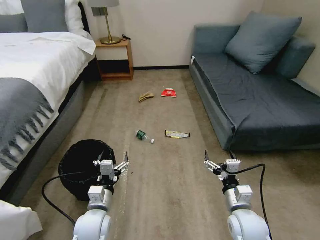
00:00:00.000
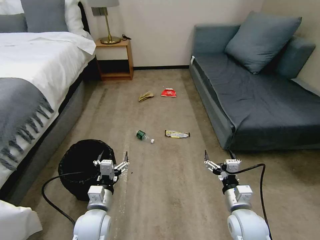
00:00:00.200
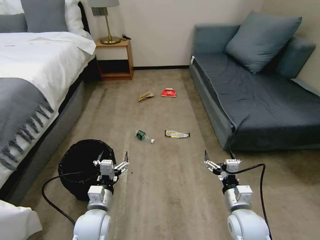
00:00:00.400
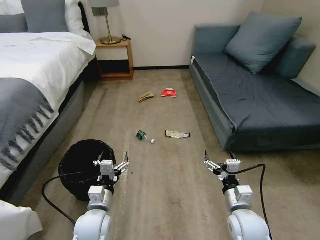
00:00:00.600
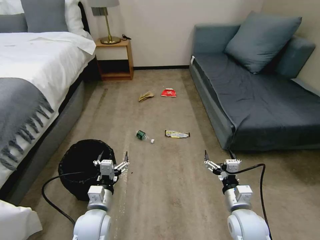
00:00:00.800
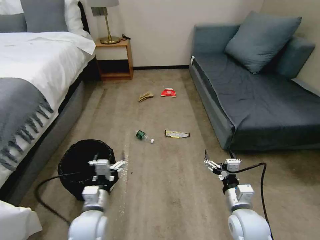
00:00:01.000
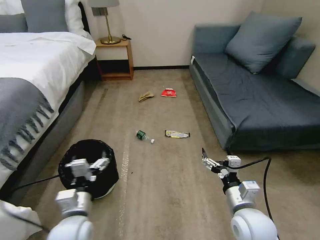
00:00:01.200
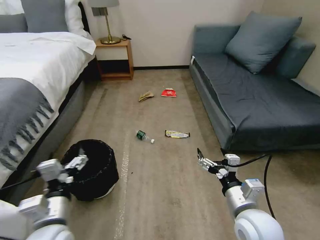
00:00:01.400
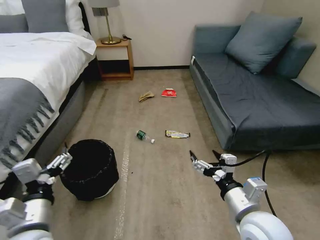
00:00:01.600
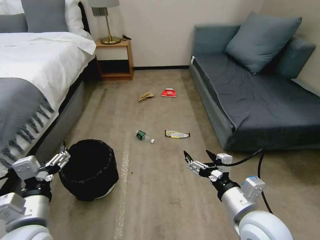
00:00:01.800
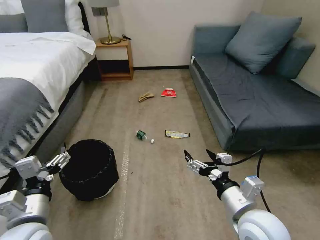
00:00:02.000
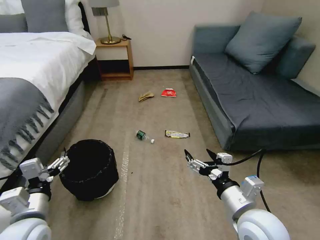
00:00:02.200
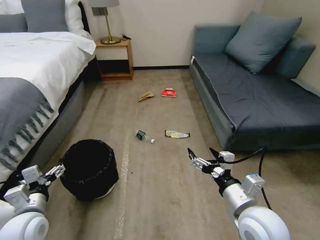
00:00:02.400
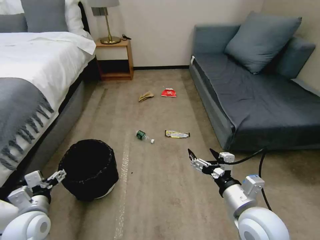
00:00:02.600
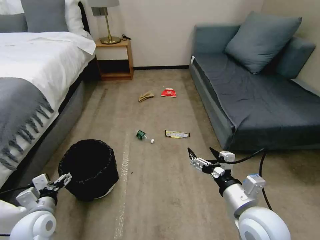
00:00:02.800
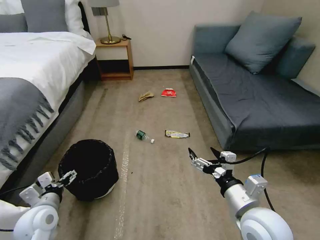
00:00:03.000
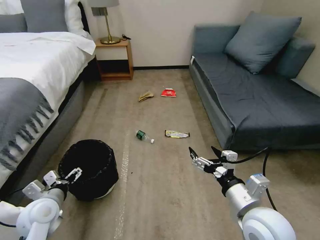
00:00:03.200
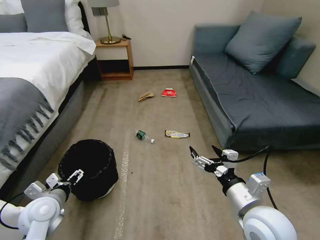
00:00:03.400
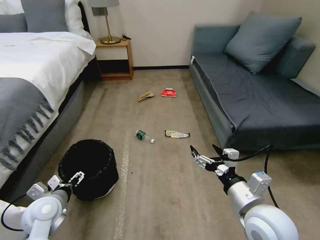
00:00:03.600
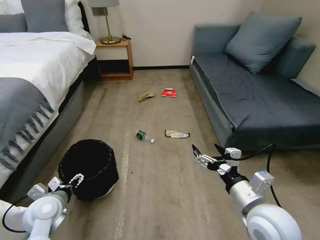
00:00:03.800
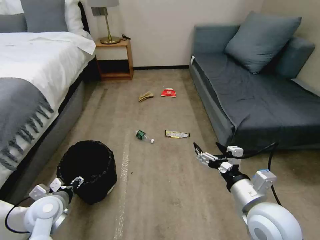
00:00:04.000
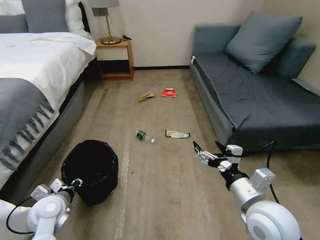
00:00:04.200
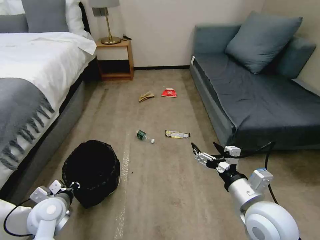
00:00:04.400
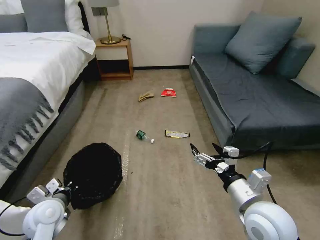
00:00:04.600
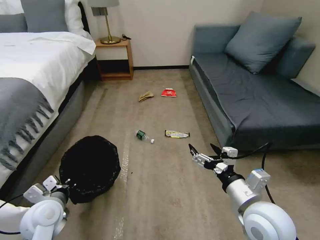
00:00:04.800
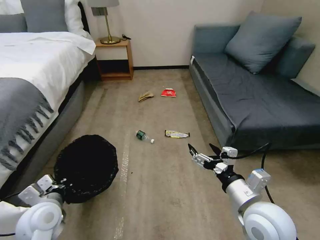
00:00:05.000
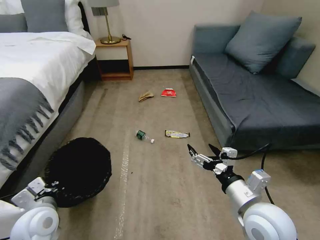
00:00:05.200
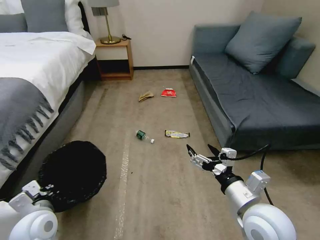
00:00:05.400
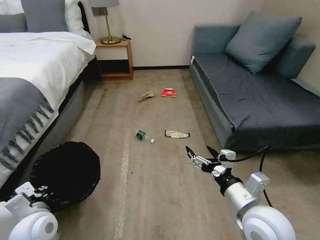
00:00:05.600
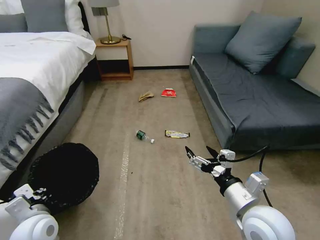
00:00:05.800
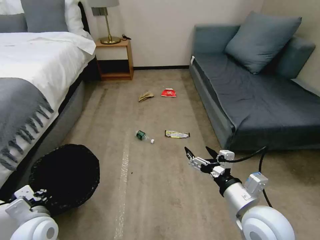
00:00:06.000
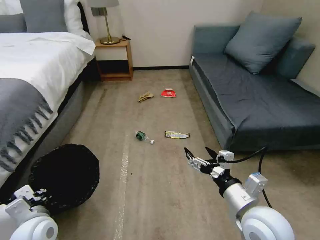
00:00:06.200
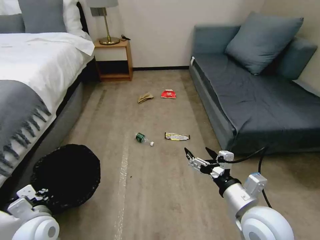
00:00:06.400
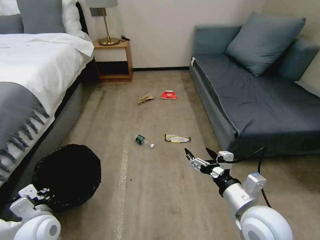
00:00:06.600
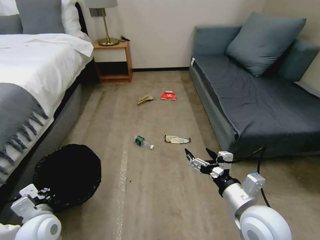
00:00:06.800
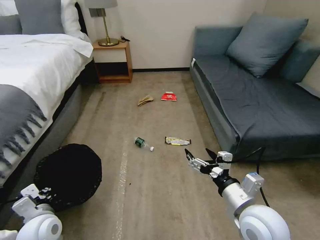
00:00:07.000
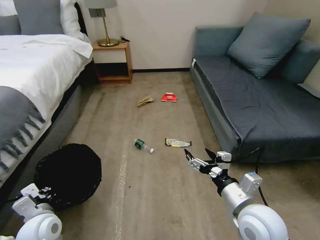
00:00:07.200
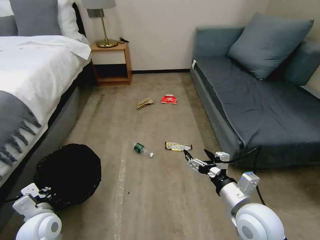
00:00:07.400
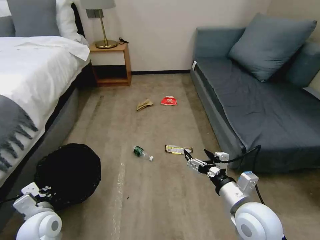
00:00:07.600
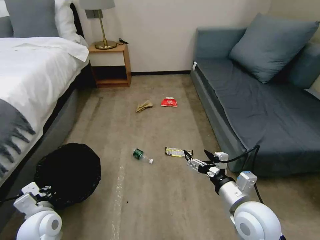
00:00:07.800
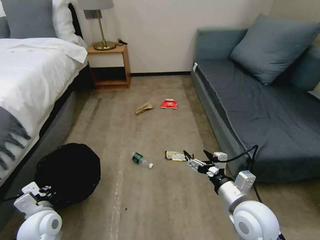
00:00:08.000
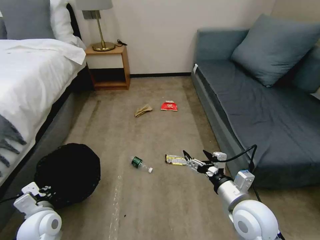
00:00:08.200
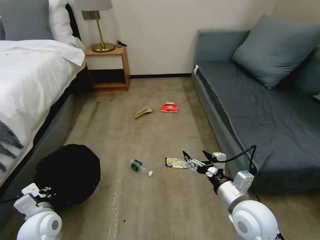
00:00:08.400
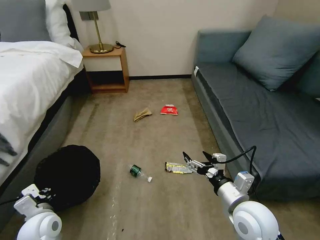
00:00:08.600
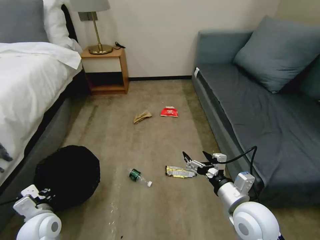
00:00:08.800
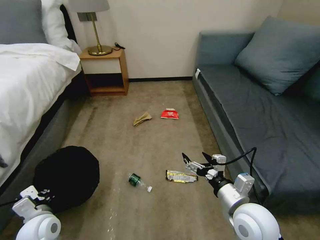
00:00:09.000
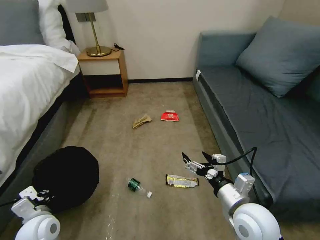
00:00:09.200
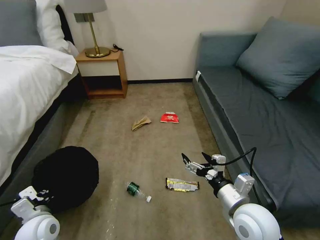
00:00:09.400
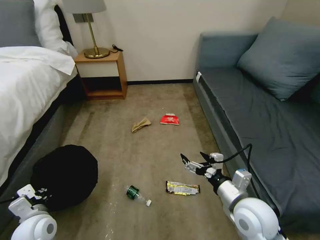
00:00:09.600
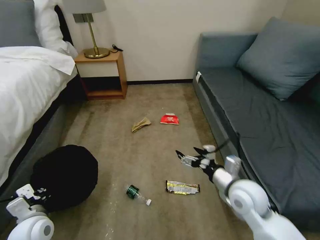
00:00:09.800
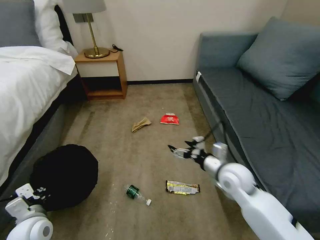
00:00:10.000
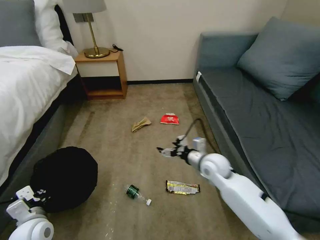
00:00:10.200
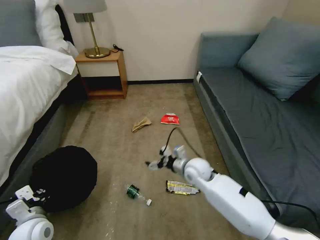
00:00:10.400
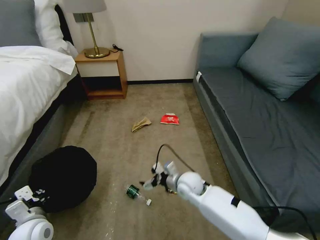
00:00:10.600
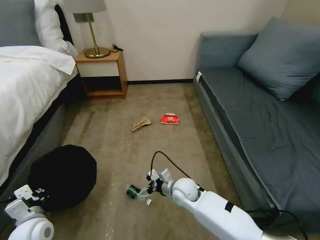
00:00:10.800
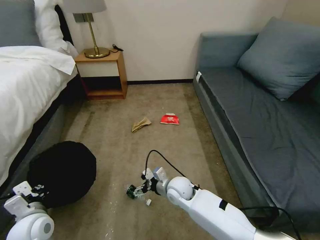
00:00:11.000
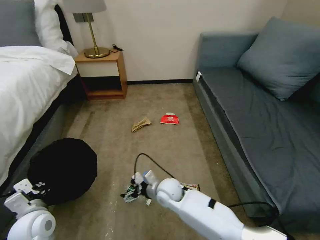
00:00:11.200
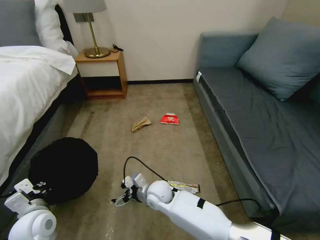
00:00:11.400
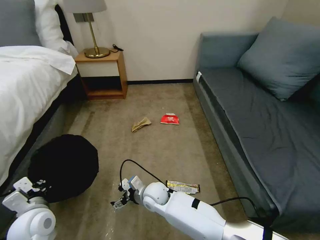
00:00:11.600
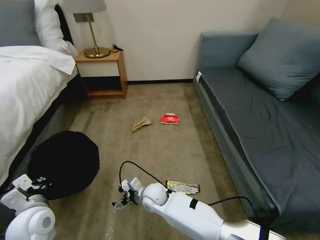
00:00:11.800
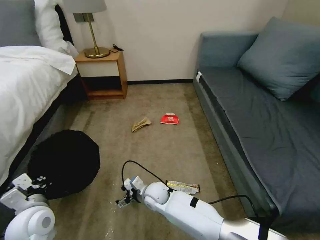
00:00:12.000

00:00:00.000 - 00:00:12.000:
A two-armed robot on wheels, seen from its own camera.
Task of the whole recording: Pick up the trash bin, then pick up the garbage on the floor and place it into the trash bin.
00:00:01.600 - 00:00:03.000: The left gripper travels downward, to the left and forward by roughly 15 cm.
00:00:03.000 - 00:00:04.400: The left gripper closes.
00:00:04.400 - 00:00:06.000: The left gripper is displaced backward by about 5 cm.
00:00:09.000 - 00:00:10.400: The right gripper goes some 20 cm forward, to the left and downward.
00:00:10.400 - 00:00:12.000: The right gripper is displaced to the left and downward by roughly 20 cm; the left gripper heads upward, covering some 5 cm.

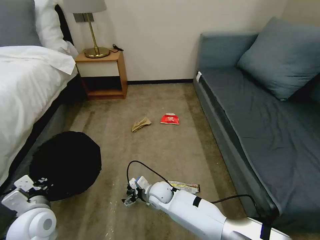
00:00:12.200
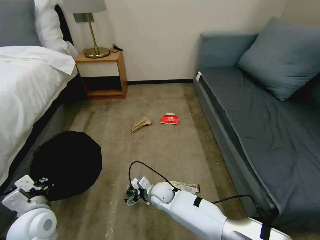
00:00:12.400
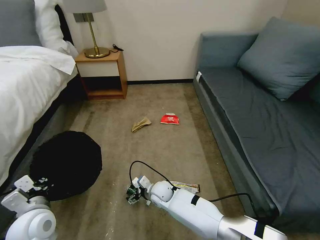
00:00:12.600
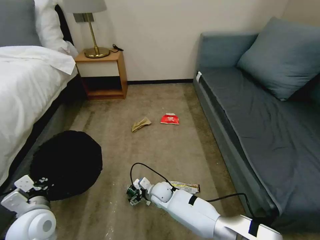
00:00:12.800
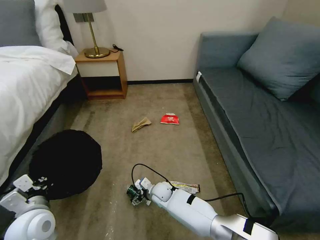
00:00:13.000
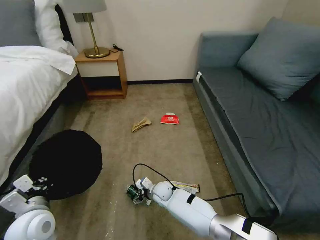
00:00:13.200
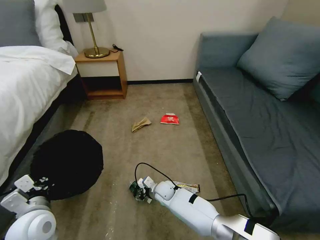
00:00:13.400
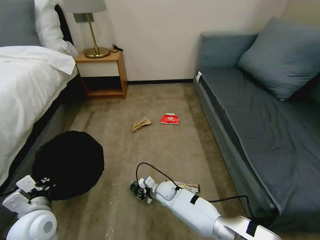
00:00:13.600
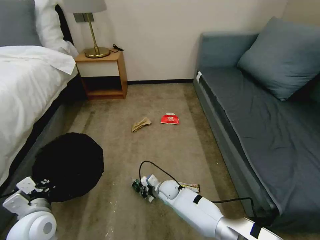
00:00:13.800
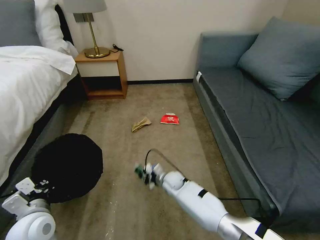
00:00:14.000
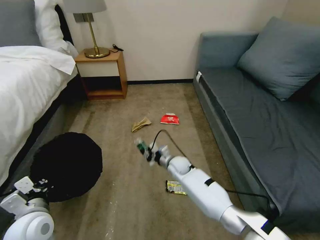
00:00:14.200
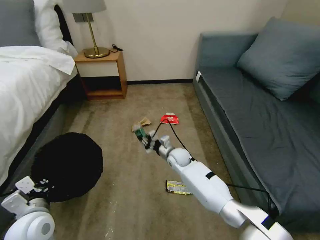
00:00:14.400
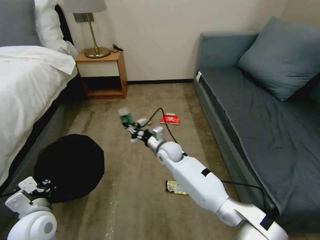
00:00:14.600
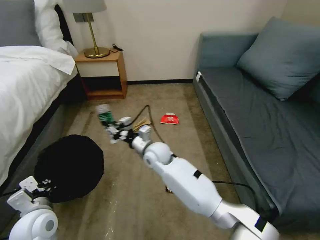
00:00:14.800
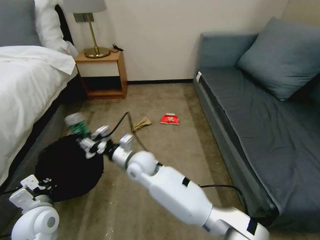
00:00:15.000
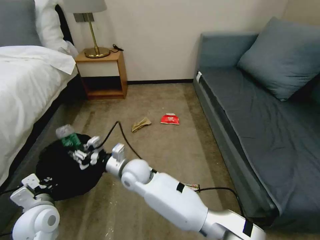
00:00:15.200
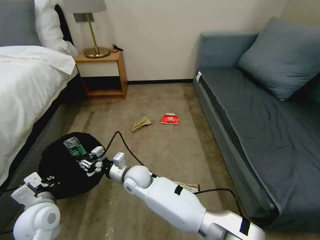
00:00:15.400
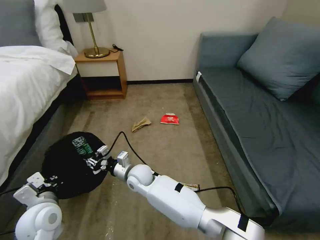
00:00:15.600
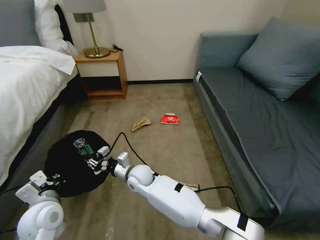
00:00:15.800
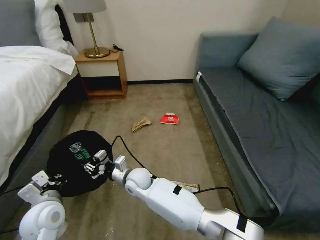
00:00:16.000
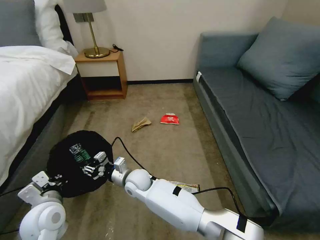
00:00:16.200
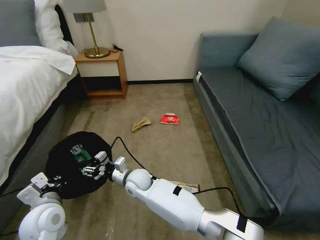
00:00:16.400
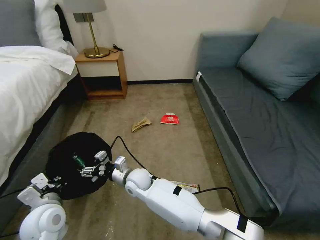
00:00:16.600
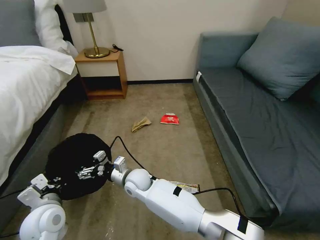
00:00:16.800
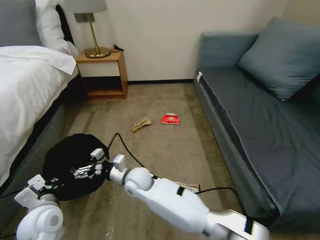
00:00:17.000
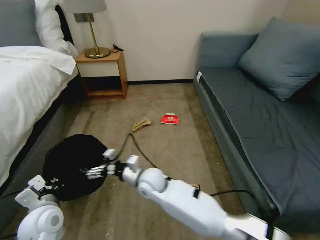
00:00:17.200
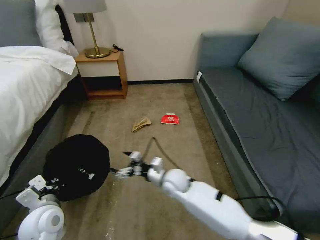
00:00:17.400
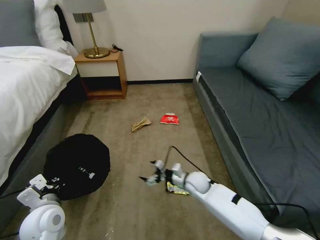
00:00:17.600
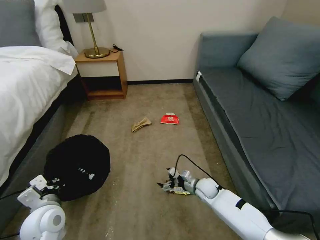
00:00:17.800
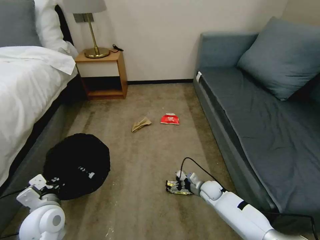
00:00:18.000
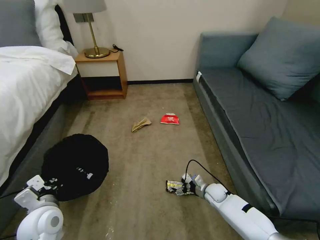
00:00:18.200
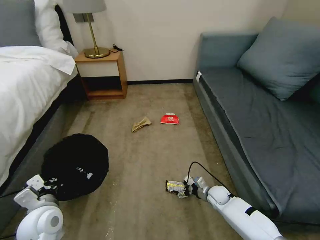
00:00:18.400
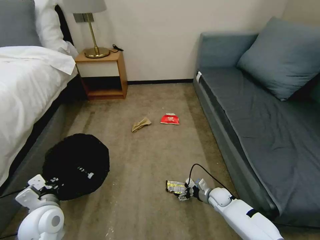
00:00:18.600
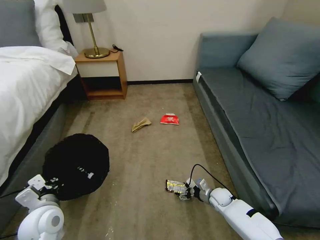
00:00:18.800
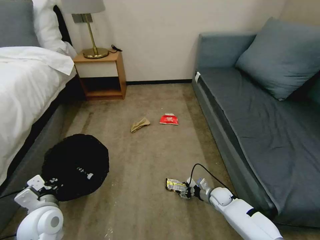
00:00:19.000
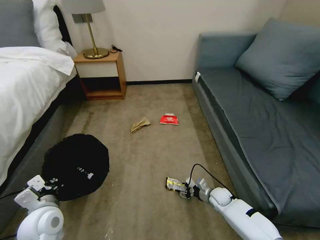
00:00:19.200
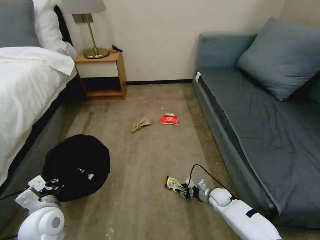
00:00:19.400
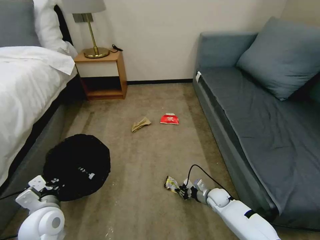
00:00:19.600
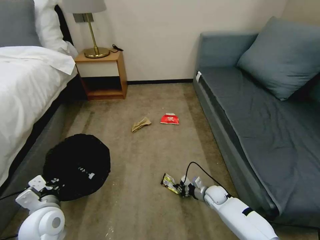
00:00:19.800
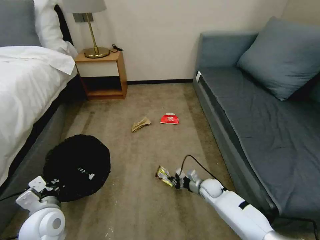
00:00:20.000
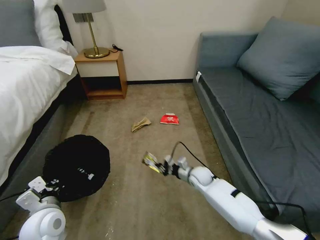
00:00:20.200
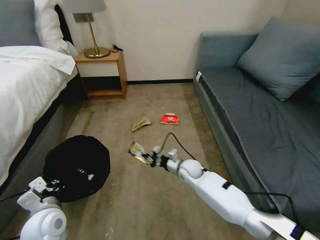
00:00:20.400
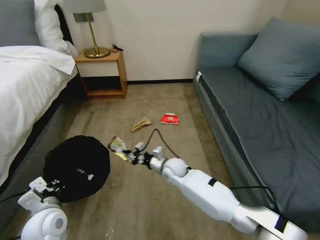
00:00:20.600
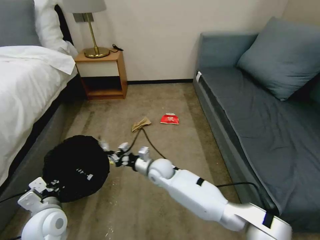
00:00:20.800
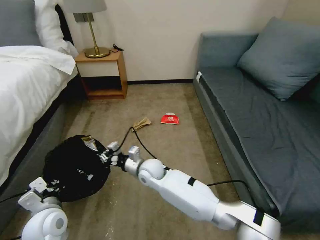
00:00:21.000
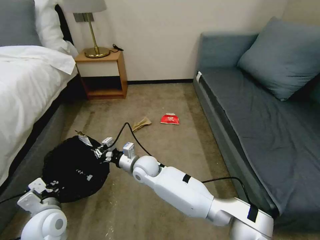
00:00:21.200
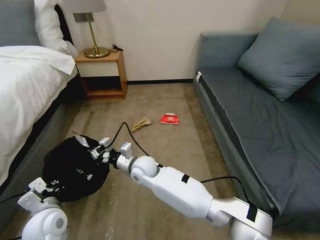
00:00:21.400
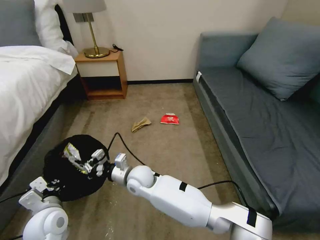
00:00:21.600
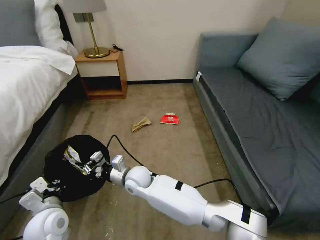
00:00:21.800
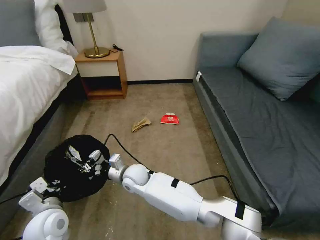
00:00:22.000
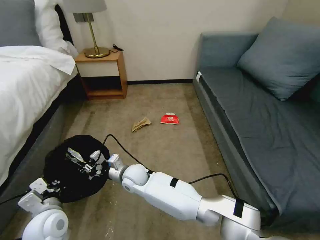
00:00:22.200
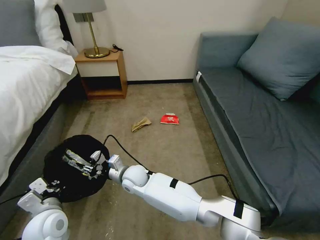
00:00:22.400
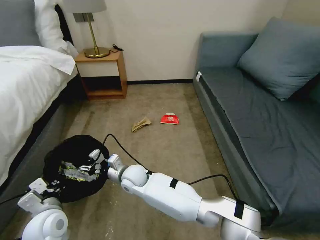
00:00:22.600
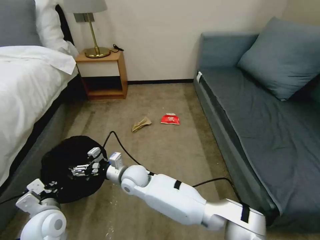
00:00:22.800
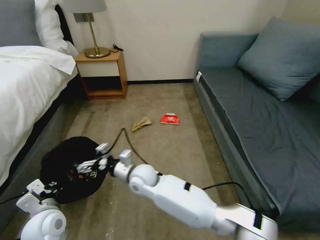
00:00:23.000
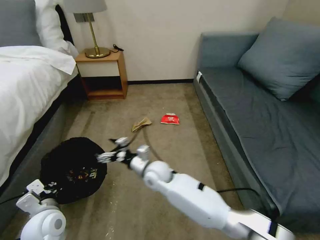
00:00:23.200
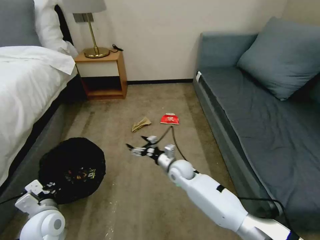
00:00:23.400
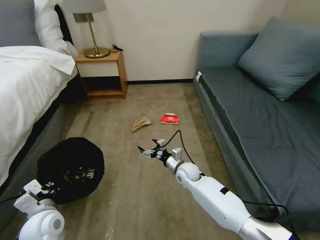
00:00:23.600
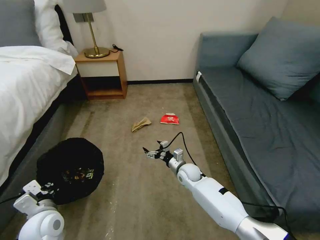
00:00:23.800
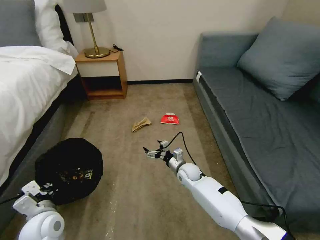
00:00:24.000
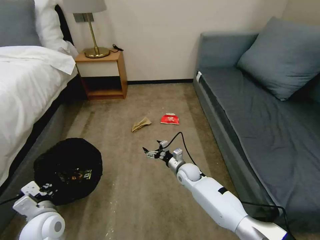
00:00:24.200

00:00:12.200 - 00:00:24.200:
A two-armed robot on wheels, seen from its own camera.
Task of the whole recording: Pick up the trash bin, then pick up the garbage on the floor and place it into the trash bin.
00:00:12.200 - 00:00:13.800: The right gripper heads downward, covering some 5 cm, and closes its fingers.
00:00:13.800 - 00:00:15.200: The right gripper travels upward and to the left by approximately 25 cm.
00:00:15.200 - 00:00:16.600: The right gripper goes some 5 cm downward, and opens its fingers.
00:00:16.600 - 00:00:18.200: The right gripper goes roughly 40 cm to the right and downward.
00:00:18.200 - 00:00:19.800: The right gripper closes up.
00:00:19.800 - 00:00:21.200: The right gripper heads to the left and upward, covering some 35 cm.
00:00:21.200 - 00:00:22.600: The right gripper ends up about 5 cm from where it was, and opens.
00:00:22.600 - 00:00:24.200: The right gripper is displaced to the right by some 25 cm, and opens.
